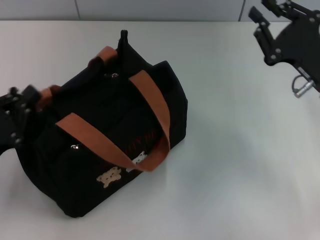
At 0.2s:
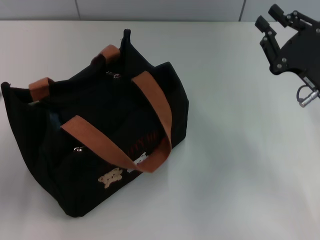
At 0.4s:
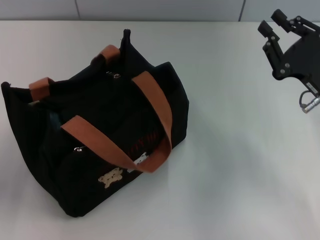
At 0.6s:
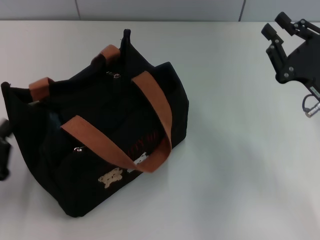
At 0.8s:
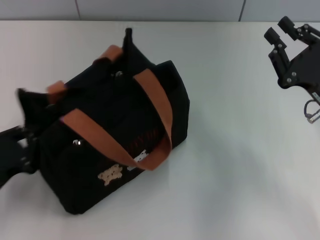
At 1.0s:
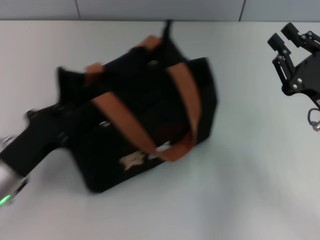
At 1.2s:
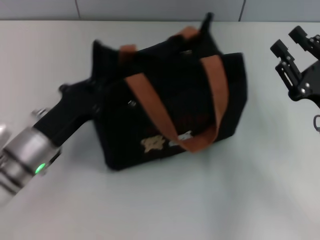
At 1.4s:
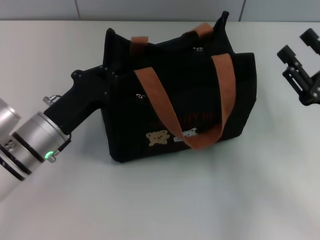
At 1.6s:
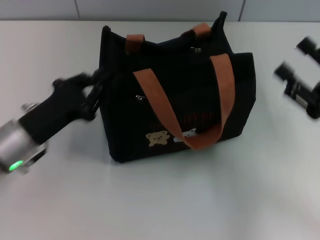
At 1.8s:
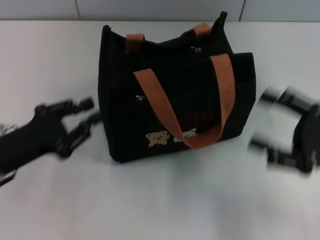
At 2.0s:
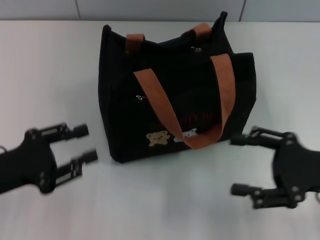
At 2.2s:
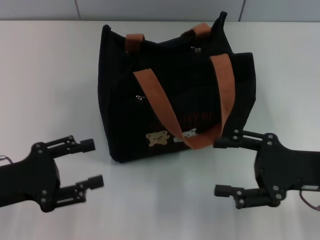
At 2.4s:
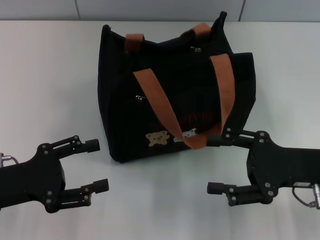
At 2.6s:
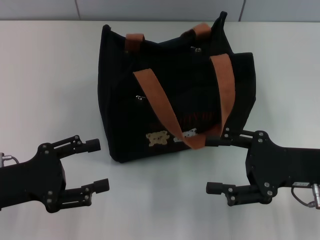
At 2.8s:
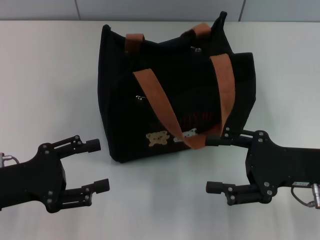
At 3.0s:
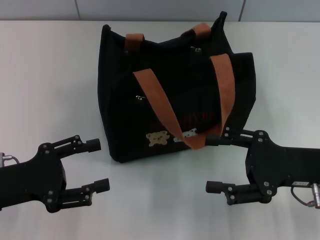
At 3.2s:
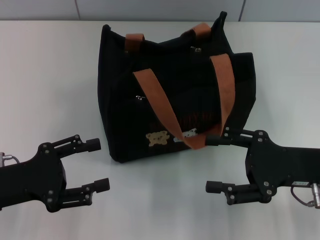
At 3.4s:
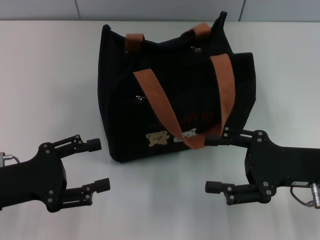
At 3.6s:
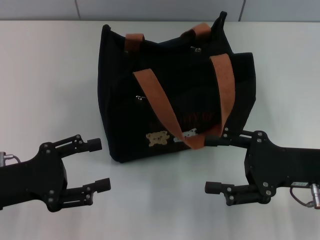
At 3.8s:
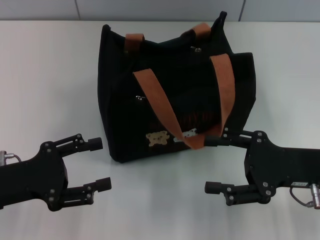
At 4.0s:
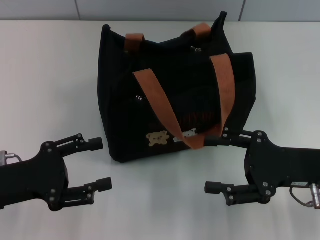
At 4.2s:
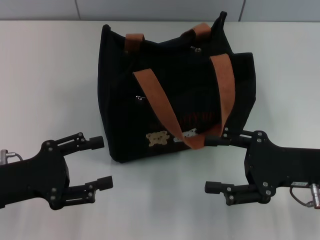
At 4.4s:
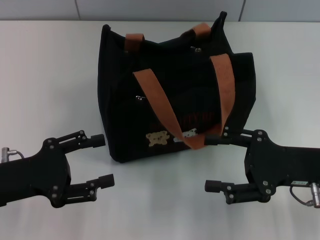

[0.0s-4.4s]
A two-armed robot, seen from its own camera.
0.0s to 1.4s: The left gripper moves to the right and forward, about 15 cm. The right gripper heads backward, covering about 5 cm.
1.4s to 3.0s: The left gripper is displaced to the left and backward by about 10 cm, and opens its fingers; the right gripper opens.
3.0s to 4.4s: Neither gripper changes place.

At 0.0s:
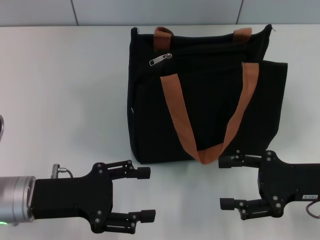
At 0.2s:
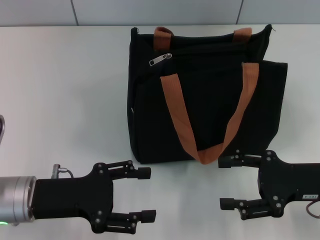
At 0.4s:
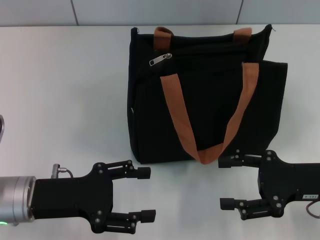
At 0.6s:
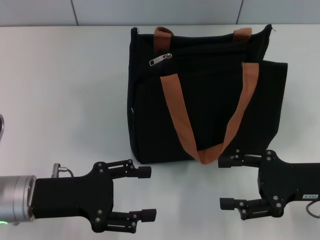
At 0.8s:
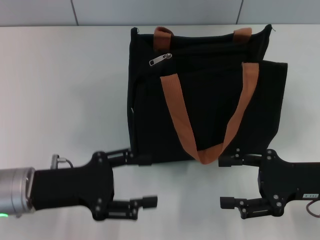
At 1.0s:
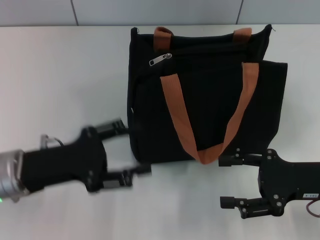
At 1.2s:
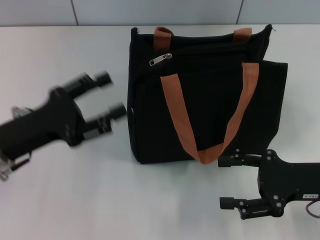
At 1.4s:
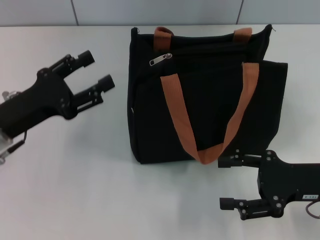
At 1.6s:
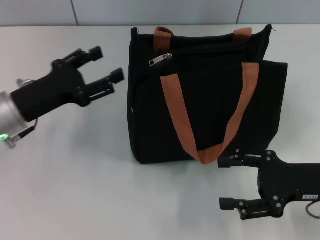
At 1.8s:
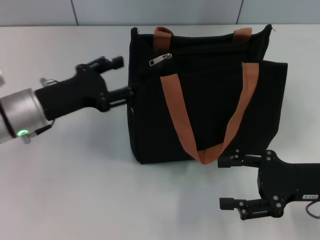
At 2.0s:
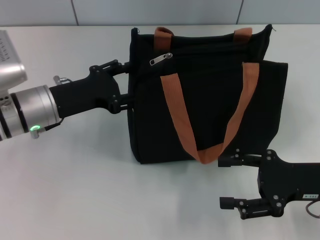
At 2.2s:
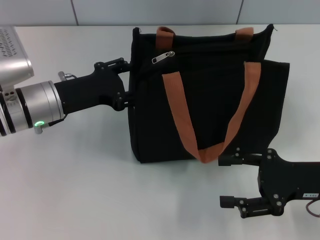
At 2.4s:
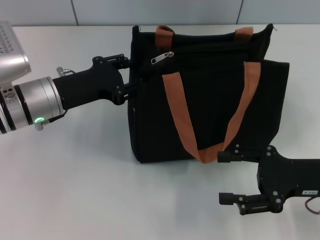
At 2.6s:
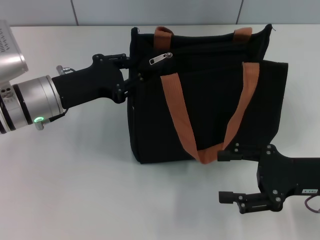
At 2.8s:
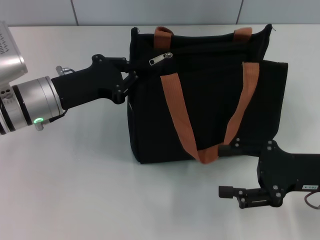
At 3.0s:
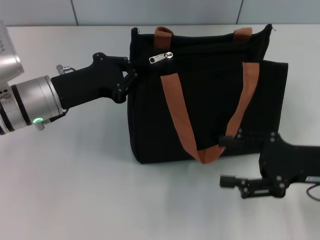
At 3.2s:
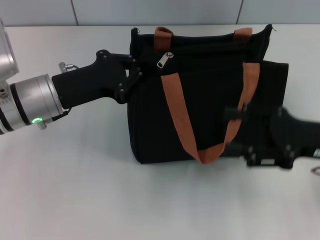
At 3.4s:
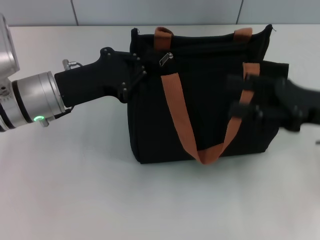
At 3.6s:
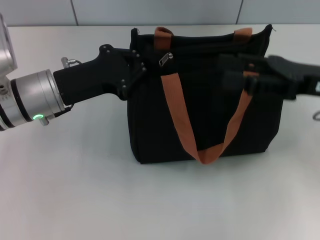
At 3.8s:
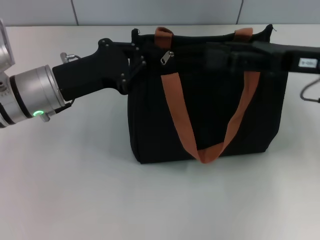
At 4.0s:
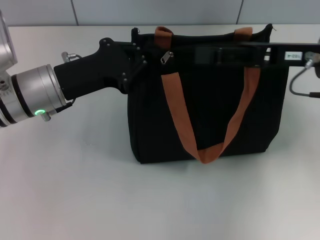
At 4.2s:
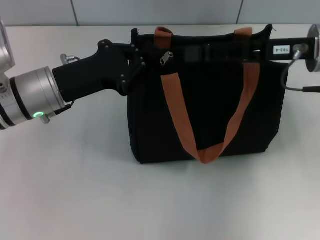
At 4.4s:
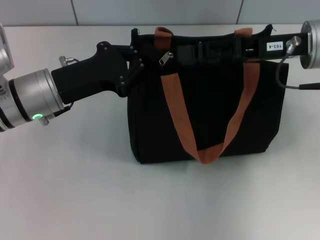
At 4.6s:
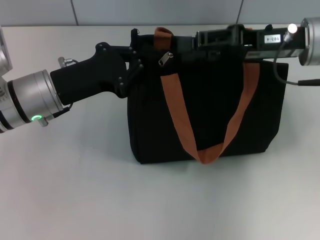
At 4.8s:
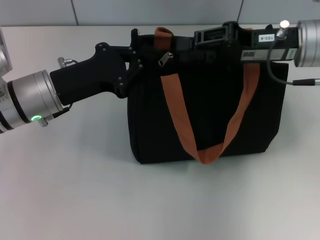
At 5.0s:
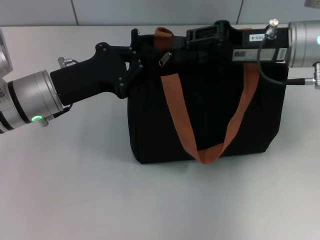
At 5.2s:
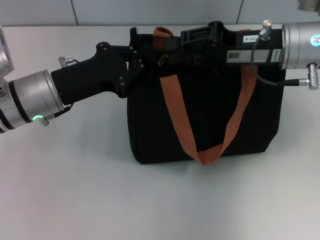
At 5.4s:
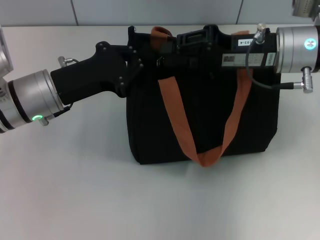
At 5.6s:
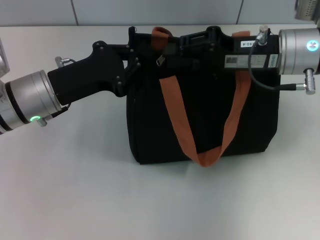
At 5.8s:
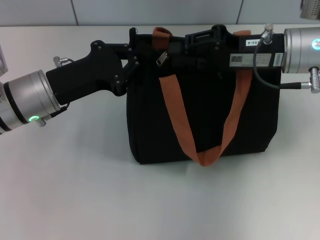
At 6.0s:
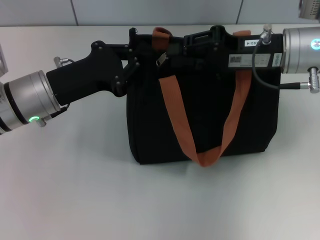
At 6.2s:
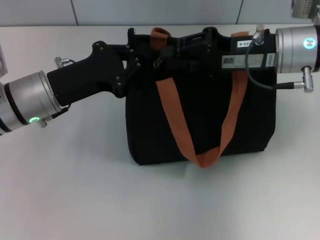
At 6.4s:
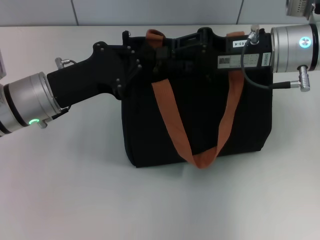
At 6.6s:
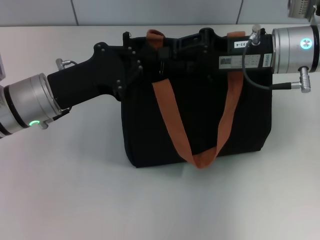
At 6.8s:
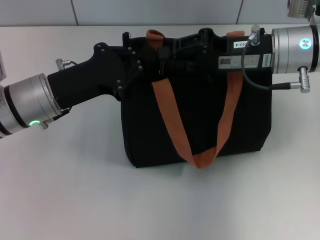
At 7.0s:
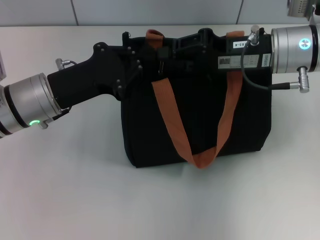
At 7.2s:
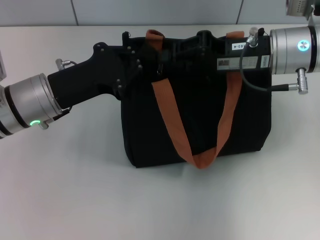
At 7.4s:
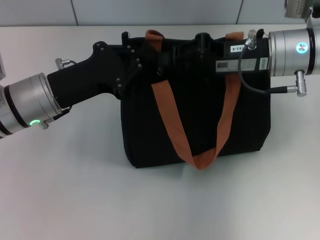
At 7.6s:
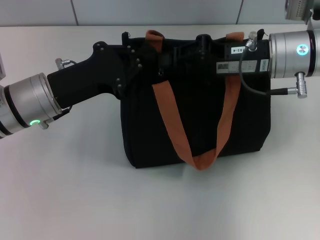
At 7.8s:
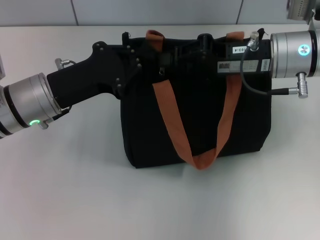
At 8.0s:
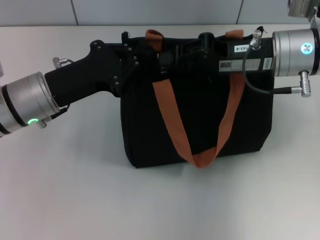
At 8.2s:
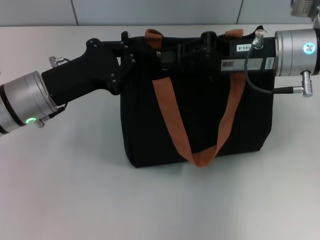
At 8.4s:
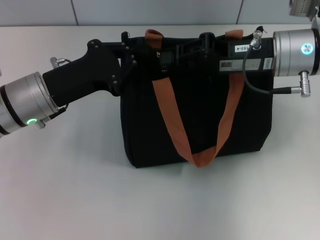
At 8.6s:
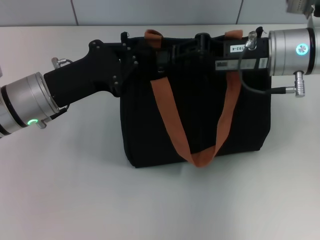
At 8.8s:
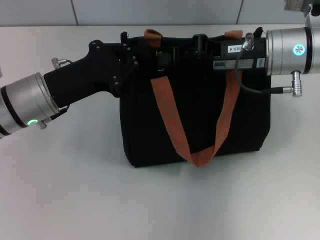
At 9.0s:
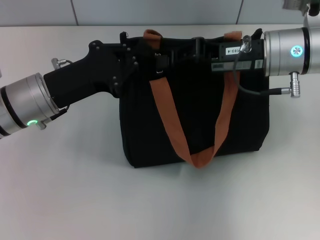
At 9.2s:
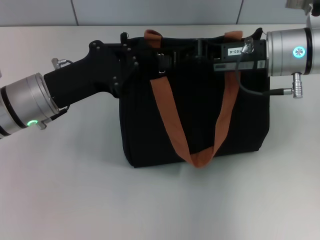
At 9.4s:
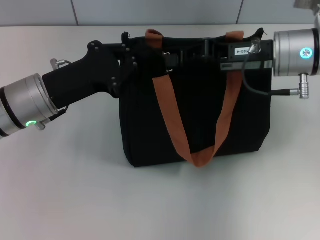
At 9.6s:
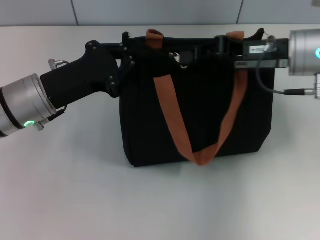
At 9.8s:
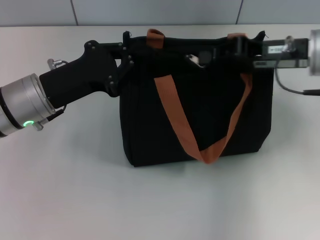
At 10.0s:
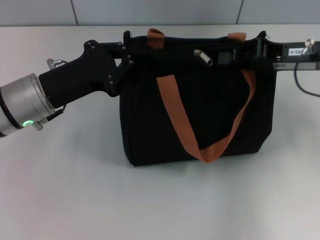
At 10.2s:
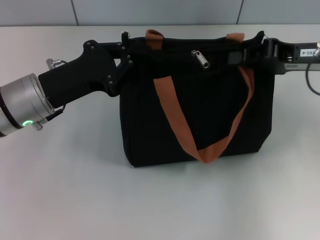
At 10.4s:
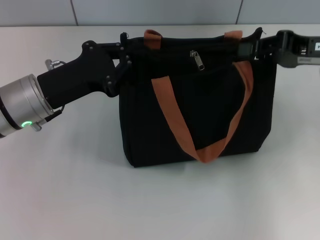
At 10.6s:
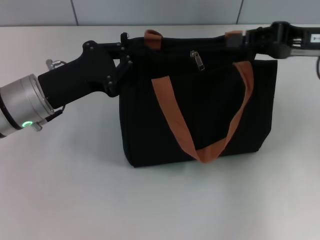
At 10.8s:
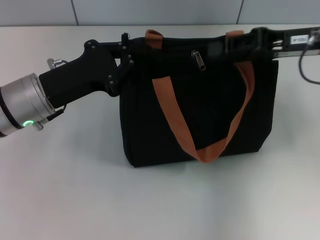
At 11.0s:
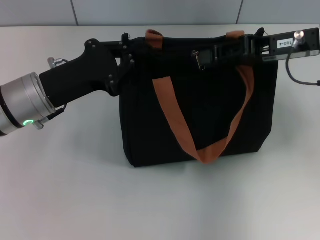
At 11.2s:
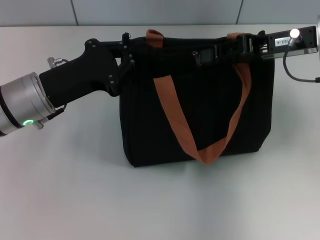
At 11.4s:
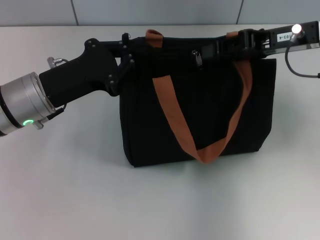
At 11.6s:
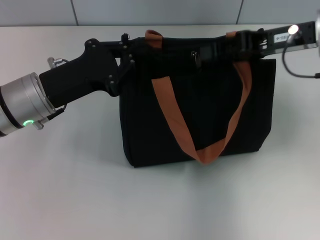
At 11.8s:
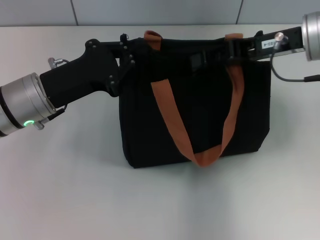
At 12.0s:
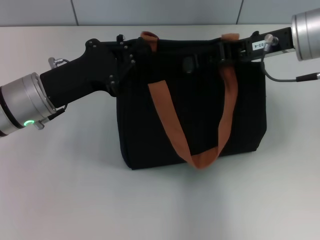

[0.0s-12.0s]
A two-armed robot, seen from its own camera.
0.0s to 1.6s: The left gripper travels forward by approximately 10 cm.
1.6s to 3.0s: The left gripper moves approximately 5 cm, and closes up.
3.0s to 4.4s: The right gripper shifts about 15 cm forward, upward and to the left.
4.4s to 6.0s: The right gripper closes up.
6.0s to 9.0s: The grippers stay close to where they were, moving slightly.
9.0s to 10.4s: The right gripper heads to the right, covering some 10 cm.
10.4s to 12.0s: The right gripper shifts roughly 5 cm to the left.

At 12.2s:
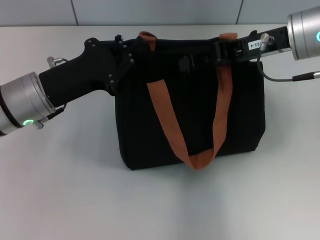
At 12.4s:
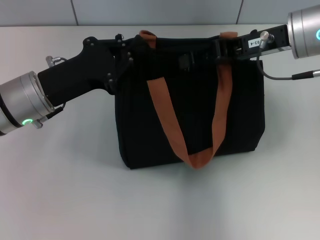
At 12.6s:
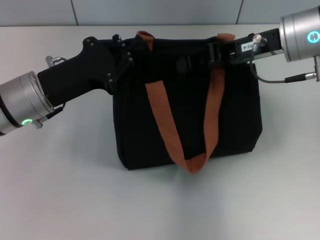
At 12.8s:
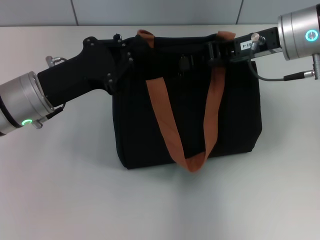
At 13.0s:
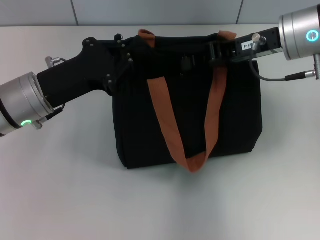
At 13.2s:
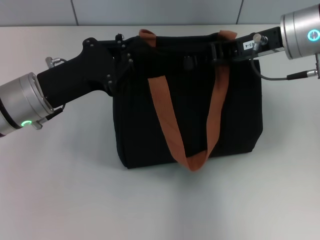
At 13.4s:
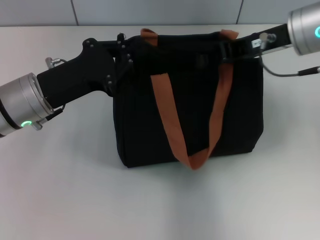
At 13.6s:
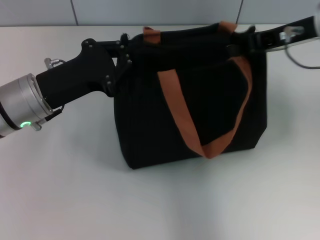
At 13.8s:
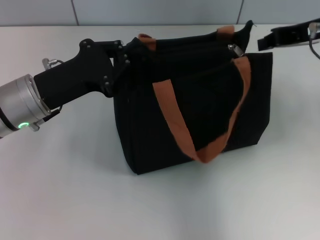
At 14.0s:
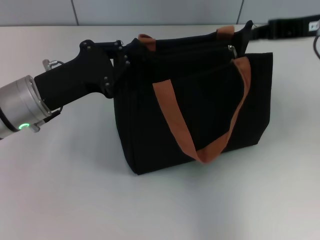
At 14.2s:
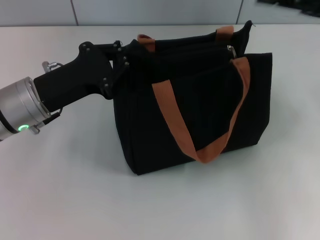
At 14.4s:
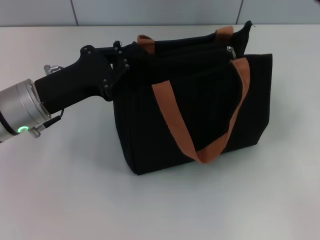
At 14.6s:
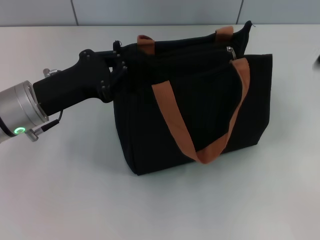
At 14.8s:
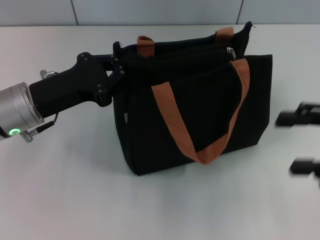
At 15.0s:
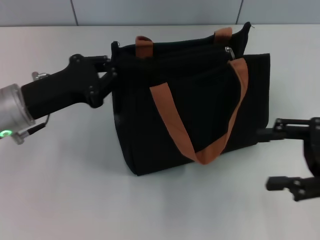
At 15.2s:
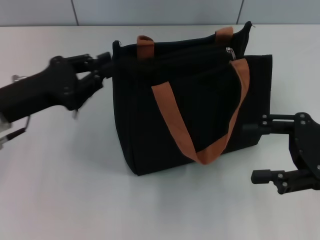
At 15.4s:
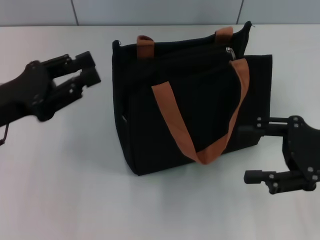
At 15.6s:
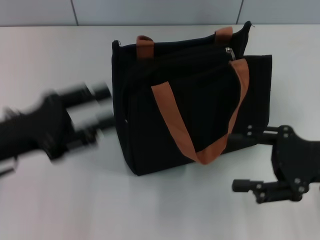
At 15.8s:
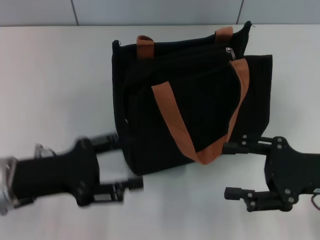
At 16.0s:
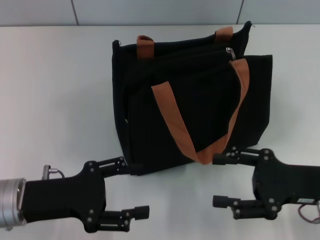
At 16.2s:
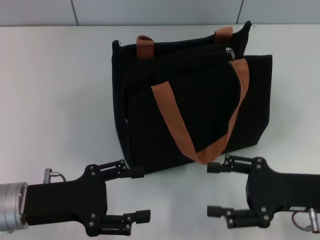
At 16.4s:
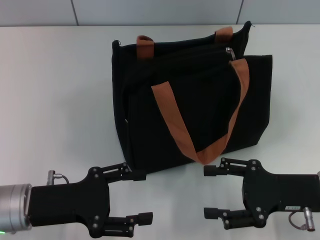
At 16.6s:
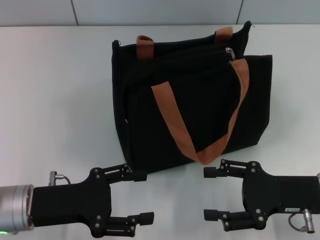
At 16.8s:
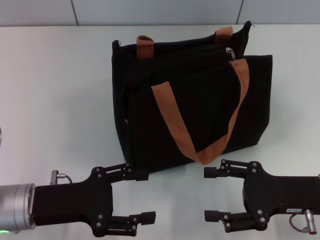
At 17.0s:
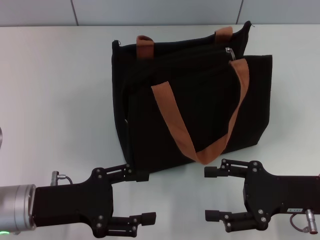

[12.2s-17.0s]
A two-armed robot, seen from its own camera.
Step, 14.0s to 15.2s: Grab the zipper with your left hand.
12.2s to 13.8s: The right gripper shifts by about 5 cm.
13.8s to 15.4s: The right gripper is displaced downward and backward by approximately 15 cm, and opens up. The left gripper goes roughly 5 cm to the left.
15.4s to 17.0s: The right gripper moves downward, about 5 cm. The left gripper shifts some 10 cm downward and backward, and opens its fingers.

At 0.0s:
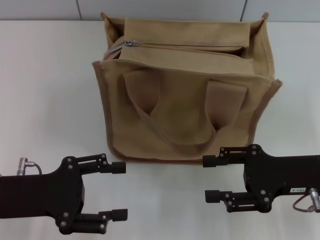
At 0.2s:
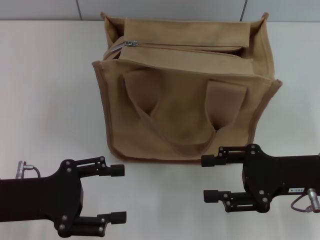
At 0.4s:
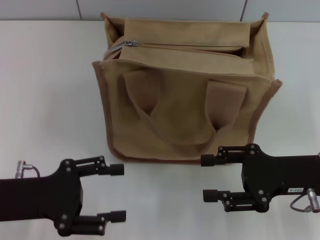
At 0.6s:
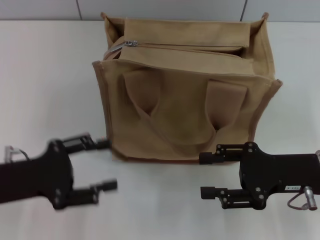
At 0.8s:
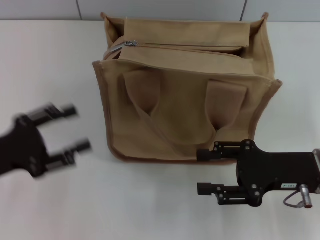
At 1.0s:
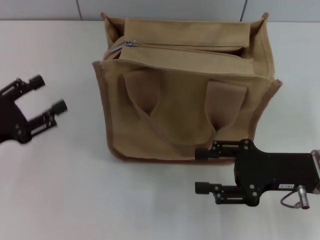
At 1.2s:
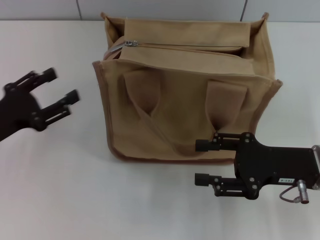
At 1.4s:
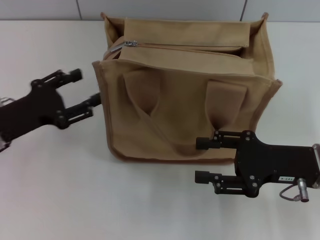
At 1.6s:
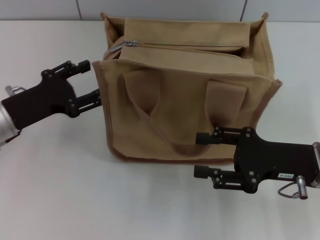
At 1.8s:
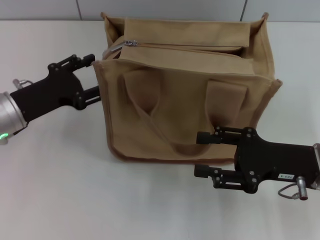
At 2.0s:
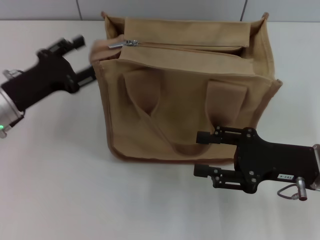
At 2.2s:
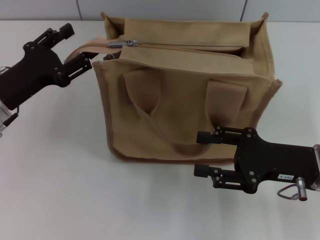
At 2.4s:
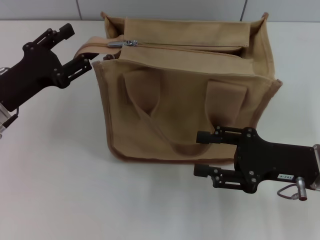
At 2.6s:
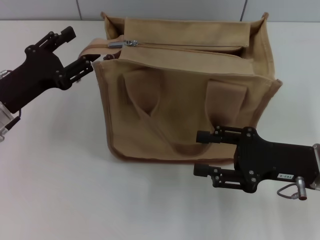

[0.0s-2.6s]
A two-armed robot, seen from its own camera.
0.0s to 1.2s: The left gripper shifts by approximately 5 cm.
1.2s to 2.6s: The left gripper shifts by about 5 cm.
